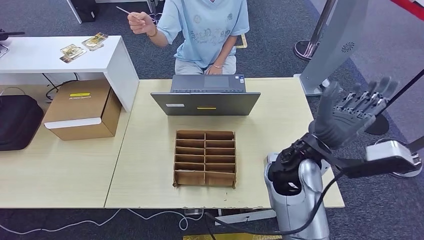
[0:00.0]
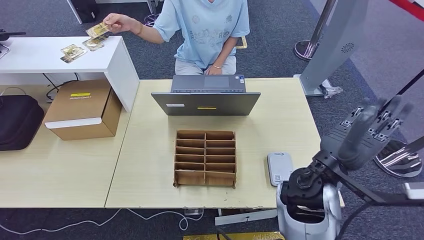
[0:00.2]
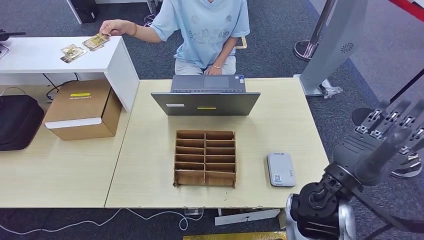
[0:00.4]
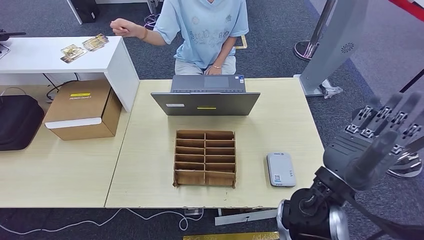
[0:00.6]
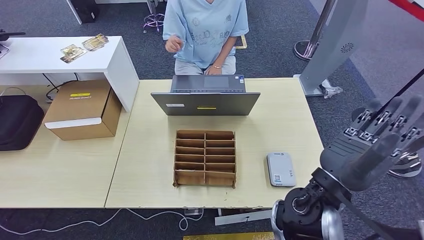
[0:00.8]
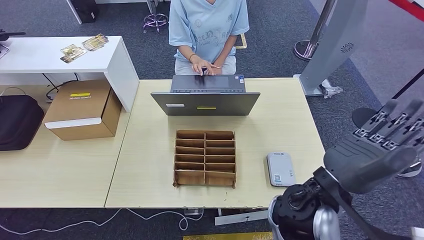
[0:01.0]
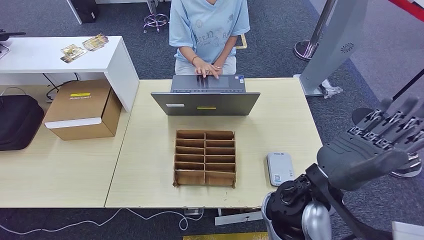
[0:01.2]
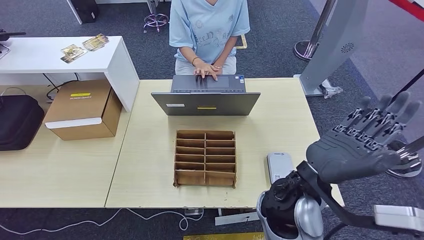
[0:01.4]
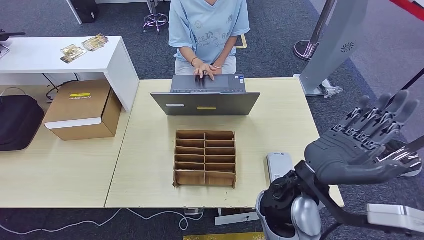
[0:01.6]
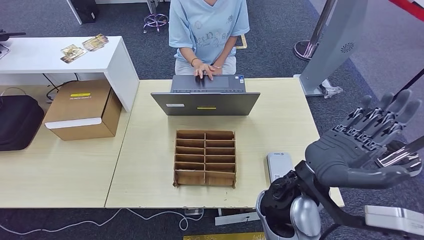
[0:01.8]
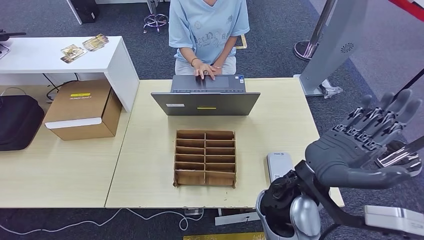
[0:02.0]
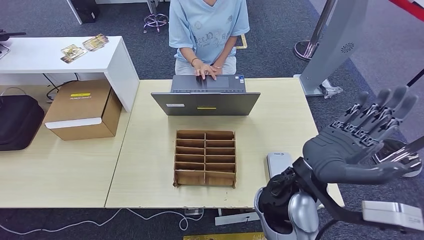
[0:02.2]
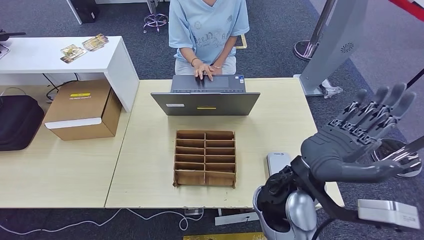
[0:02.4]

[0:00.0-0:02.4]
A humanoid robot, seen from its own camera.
Step, 0:00.0 to 0:02.4: Hand the room key to the person.
0:00.0 to 0:01.2: The right hand goes approximately 10 cm backward.
0:01.2 to 0:02.4: The hands move only a little.
